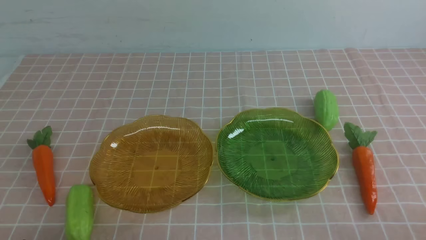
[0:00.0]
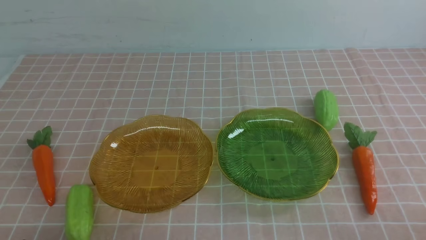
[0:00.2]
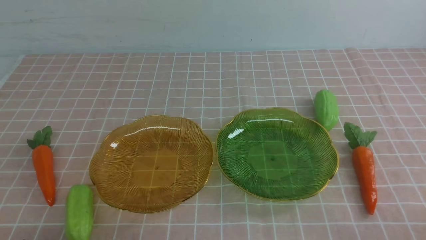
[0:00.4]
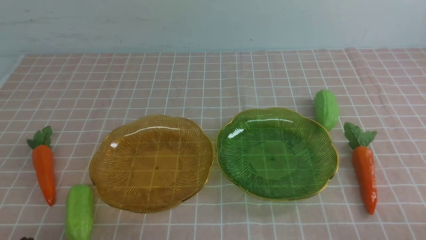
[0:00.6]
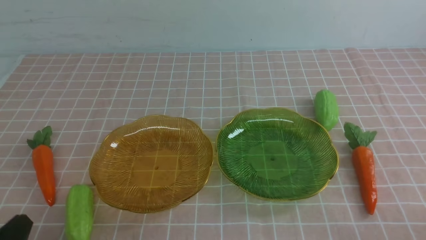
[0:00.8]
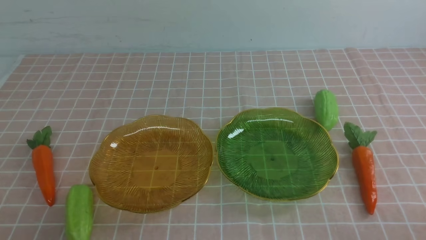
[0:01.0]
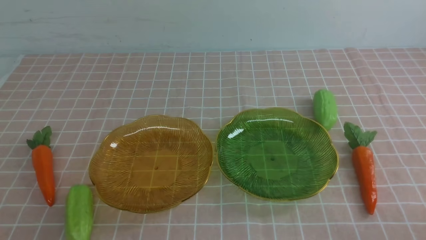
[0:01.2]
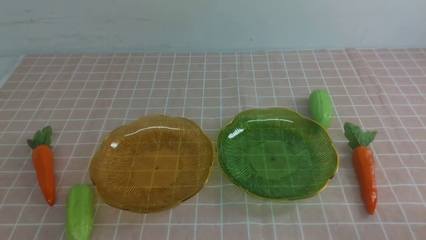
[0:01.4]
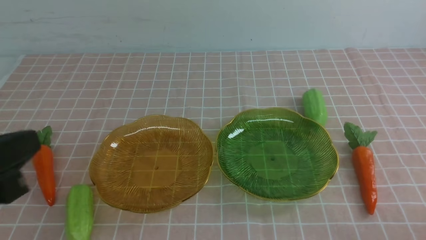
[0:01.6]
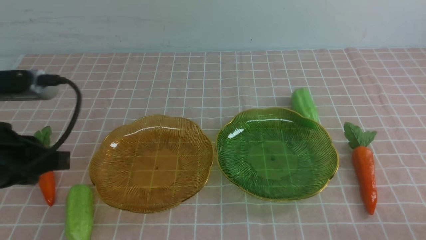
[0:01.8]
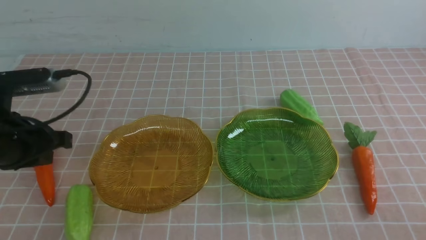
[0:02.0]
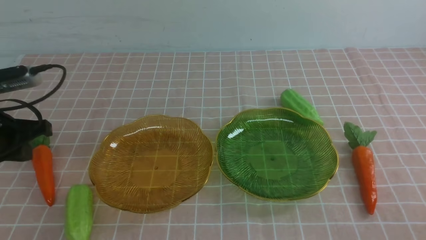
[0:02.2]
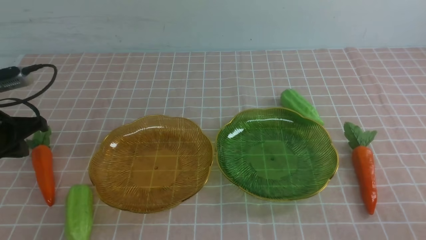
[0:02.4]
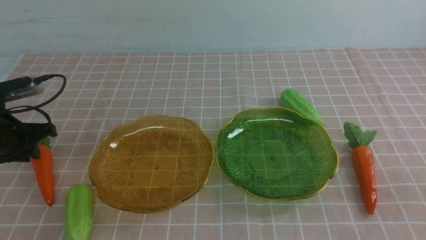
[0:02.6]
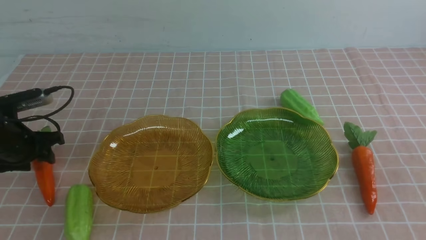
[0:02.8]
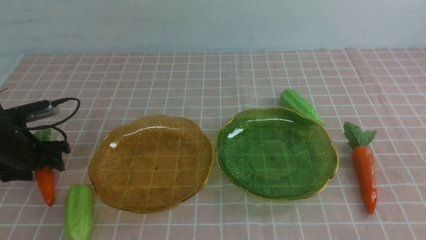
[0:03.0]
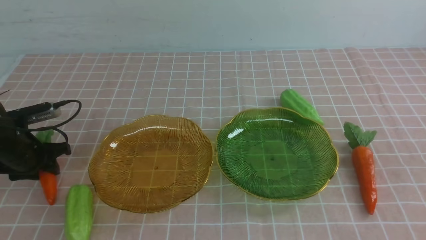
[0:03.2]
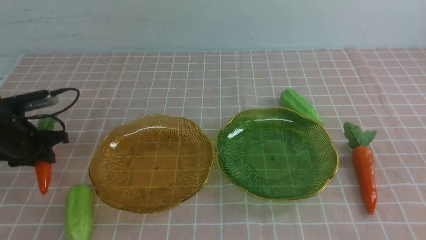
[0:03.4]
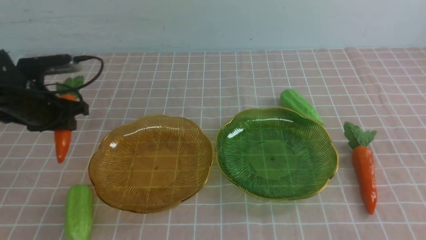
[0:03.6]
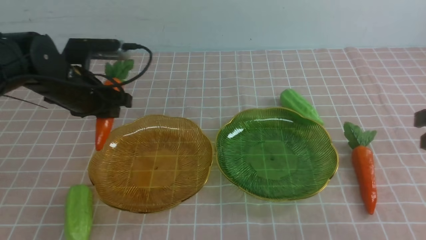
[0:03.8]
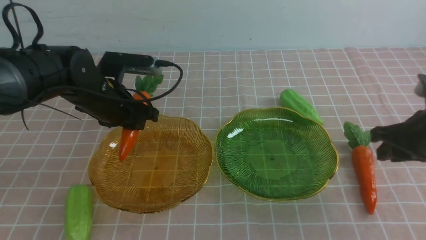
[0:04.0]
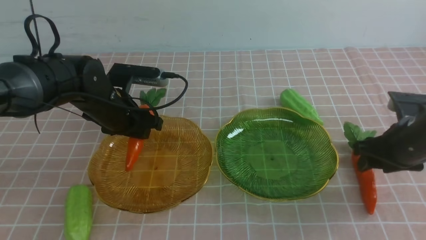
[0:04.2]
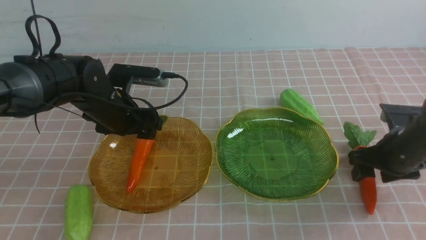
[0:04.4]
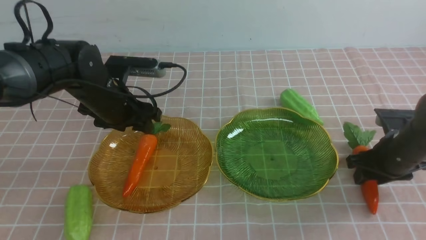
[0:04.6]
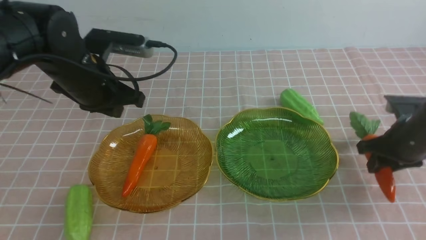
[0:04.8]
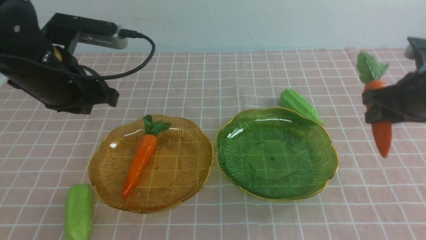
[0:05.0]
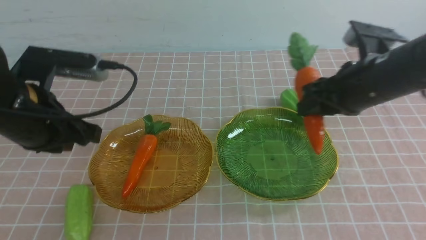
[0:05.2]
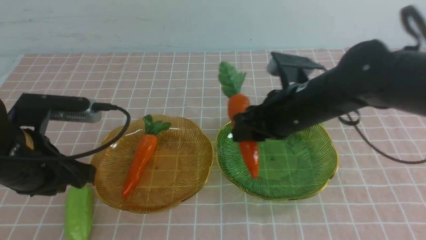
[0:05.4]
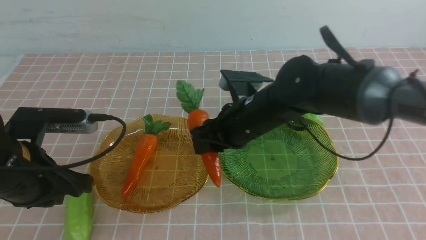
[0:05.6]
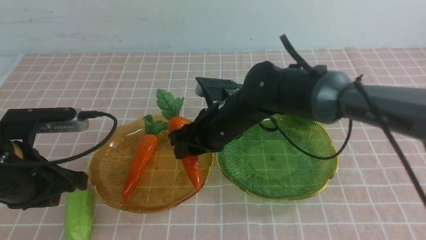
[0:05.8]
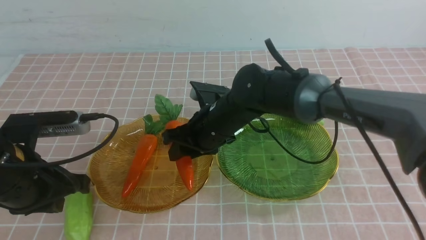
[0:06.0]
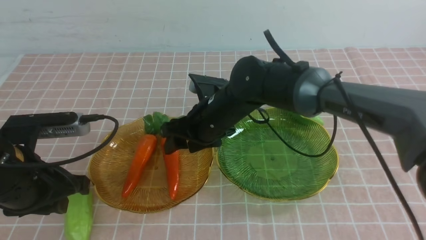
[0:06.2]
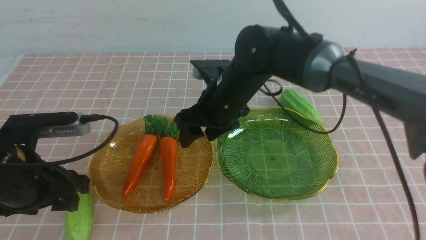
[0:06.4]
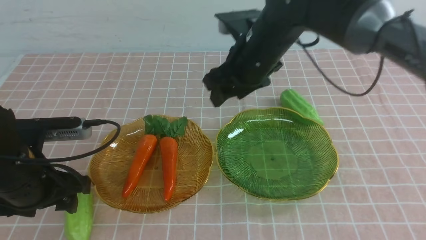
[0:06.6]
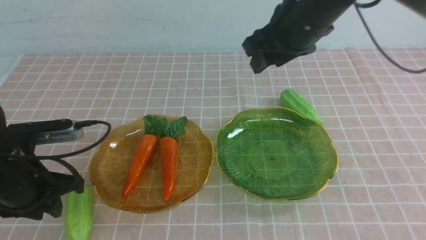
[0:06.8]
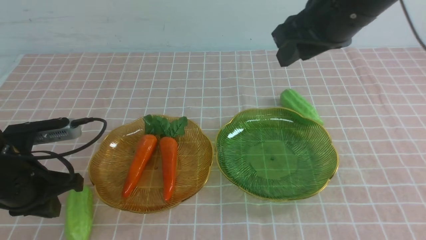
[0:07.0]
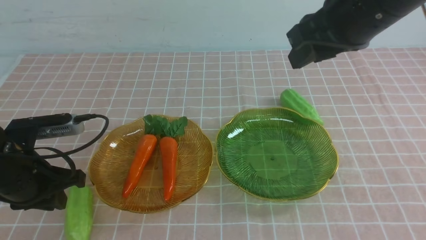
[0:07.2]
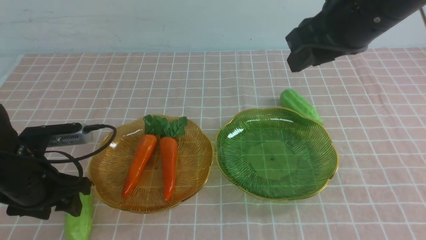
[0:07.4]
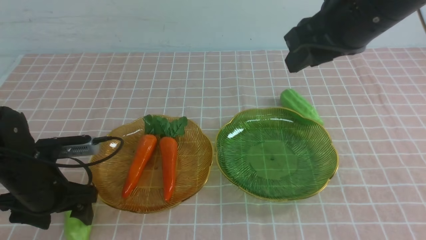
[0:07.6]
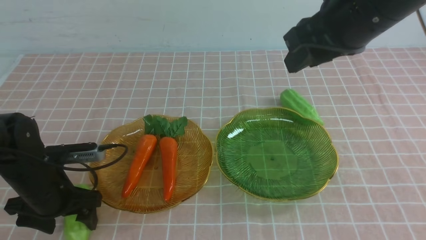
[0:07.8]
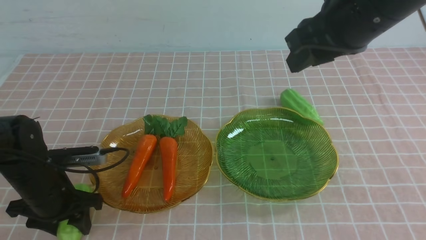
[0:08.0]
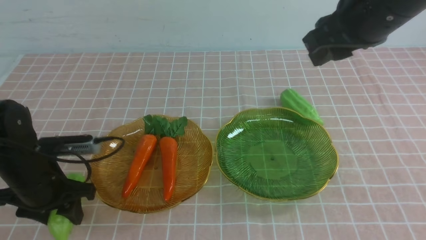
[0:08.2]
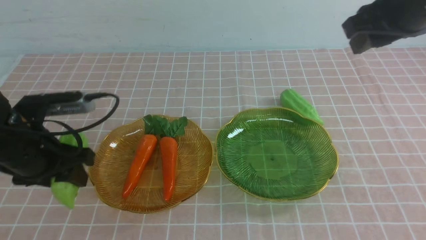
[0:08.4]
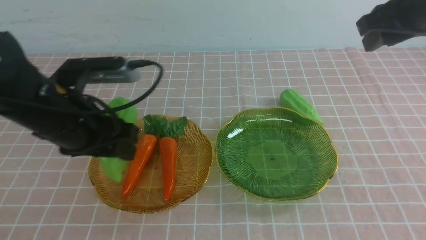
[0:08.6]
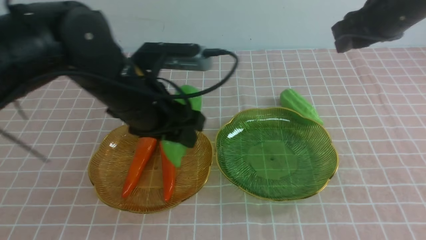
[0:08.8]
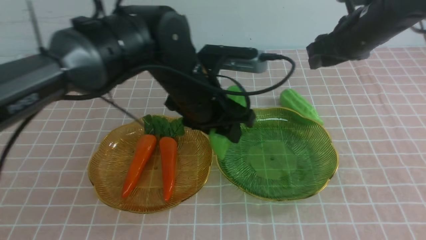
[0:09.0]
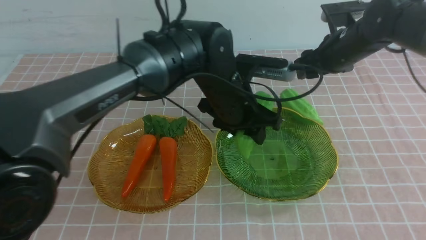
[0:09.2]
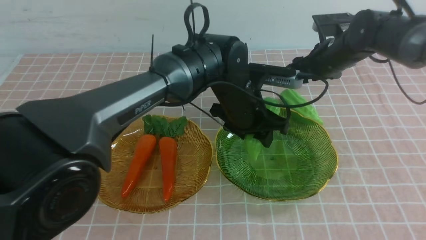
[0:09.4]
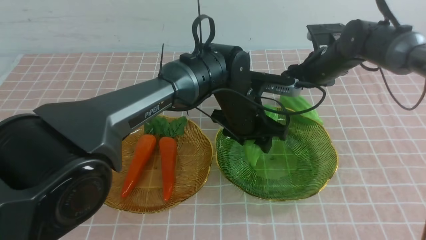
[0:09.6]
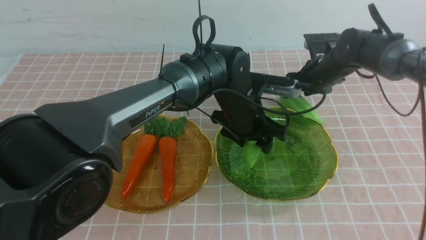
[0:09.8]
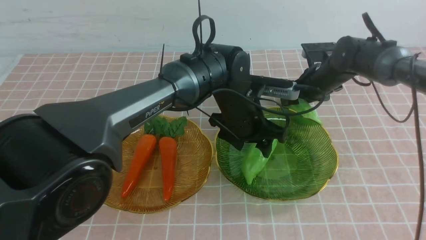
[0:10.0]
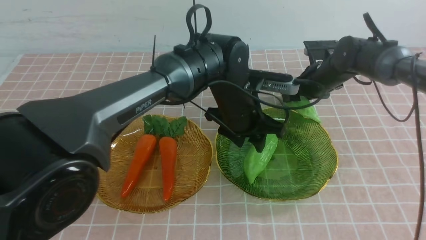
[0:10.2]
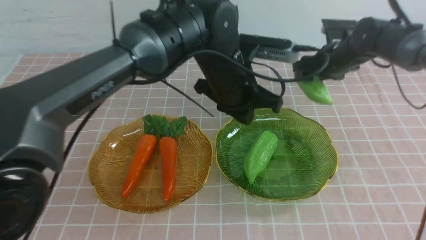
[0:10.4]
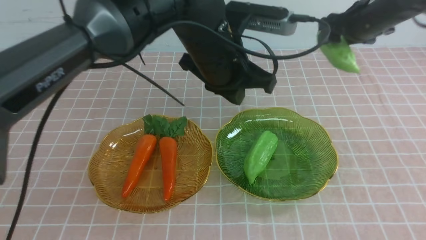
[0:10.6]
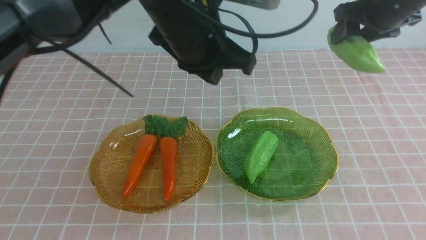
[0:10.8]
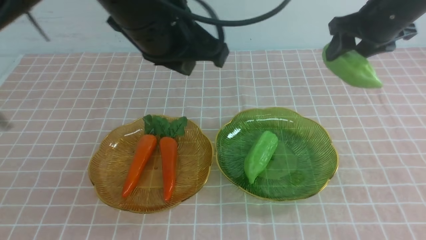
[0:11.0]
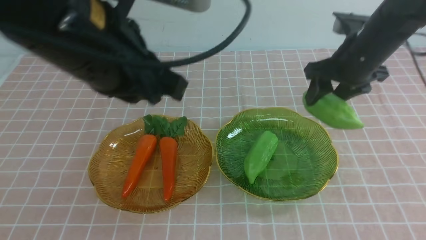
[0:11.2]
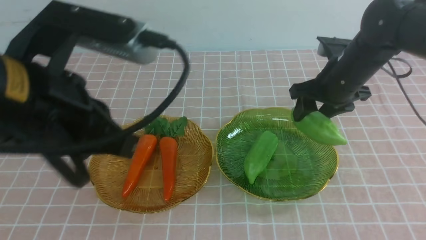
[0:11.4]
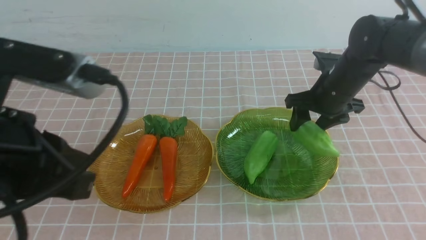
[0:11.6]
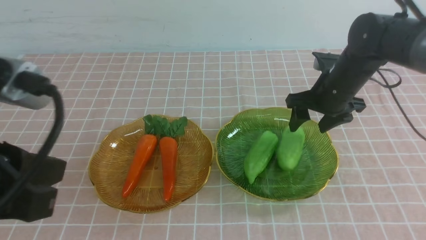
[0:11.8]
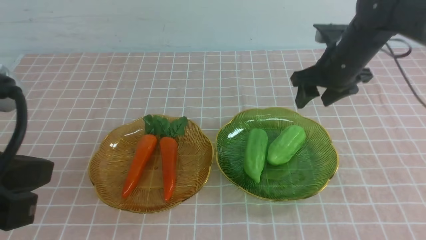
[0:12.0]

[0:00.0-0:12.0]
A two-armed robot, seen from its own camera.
Step, 0:00.0 to 0:04.4: use the left arm to grab a carrot and put it into the left plate.
Step, 0:04.6 to 0:06.2: use the right arm to grab a carrot and put it into the left plate.
Step, 0:06.4 to 0:10.0: use the left arm to grab a chayote and put it into the right plate.
Step, 0:10.4 to 0:11.6: use the right arm to grab a chayote and put it into the right plate.
0:00.0 to 0:01.6: The left gripper moves upward, about 20 cm.
0:01.6 to 0:03.0: The left gripper is displaced forward, downward and to the left by roughly 30 cm, and opens its fingers; the right gripper goes approximately 15 cm upward and forward.
0:03.0 to 0:04.4: The left gripper heads to the right, covering some 15 cm, and closes, then reopens; the right gripper moves forward and downward, approximately 25 cm, and opens.
0:04.4 to 0:06.0: The right gripper heads to the left, covering roughly 30 cm. The left gripper is displaced backward by some 15 cm, and closes its fingers.
0:06.0 to 0:07.6: The right gripper is displaced upward and to the right by roughly 25 cm; the left gripper moves downward and forward, some 10 cm, and opens its fingers.
0:07.6 to 0:09.0: The left gripper goes approximately 30 cm to the right and forward; the right gripper is displaced downward and forward by roughly 30 cm, and opens up.
0:09.0 to 0:10.4: The left gripper shifts about 30 cm upward, backward and to the left, and closes up, while the right gripper goes approximately 10 cm upward and backward.
0:10.4 to 0:12.0: The right gripper heads backward and upward, covering about 30 cm, and closes its fingers. Meanwhile the left gripper goes approximately 20 cm backward and to the left.

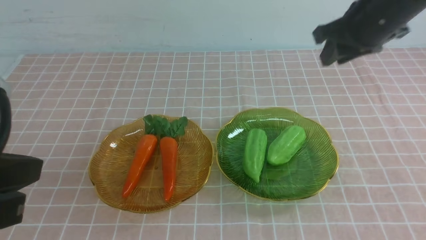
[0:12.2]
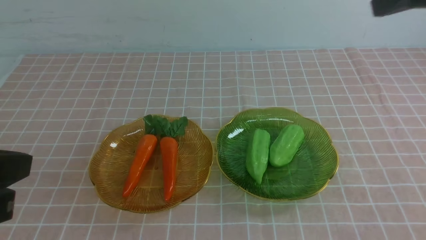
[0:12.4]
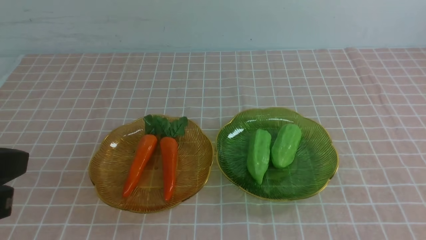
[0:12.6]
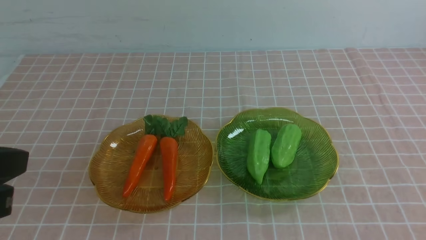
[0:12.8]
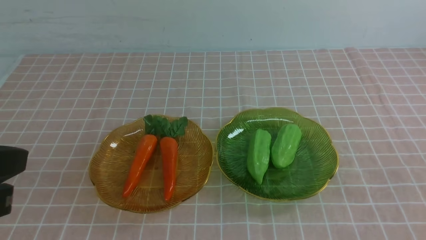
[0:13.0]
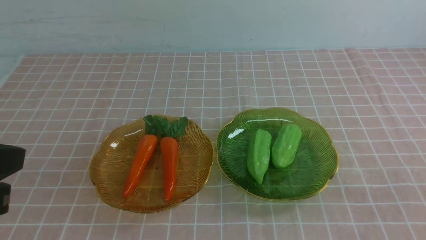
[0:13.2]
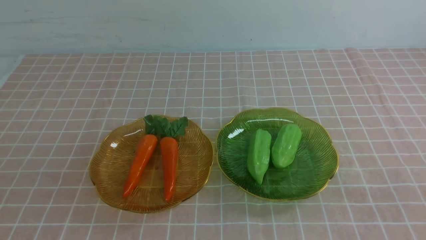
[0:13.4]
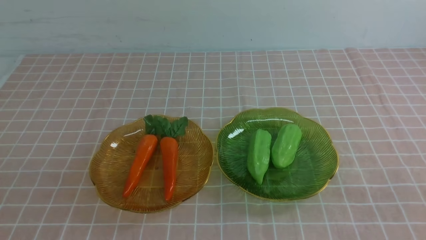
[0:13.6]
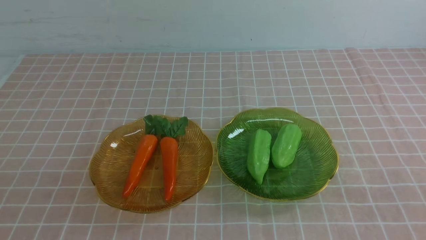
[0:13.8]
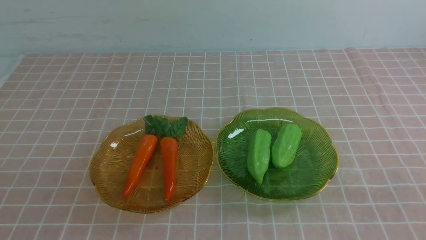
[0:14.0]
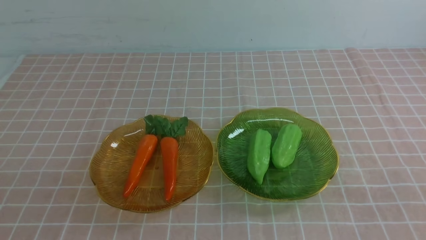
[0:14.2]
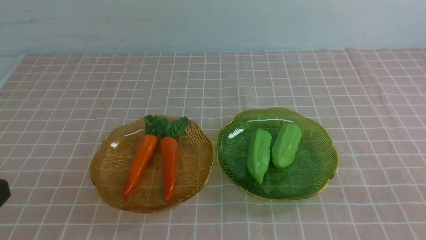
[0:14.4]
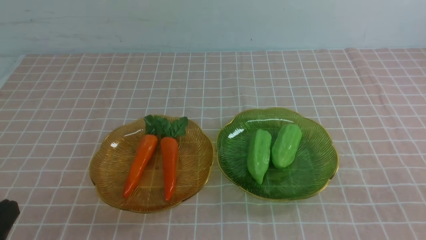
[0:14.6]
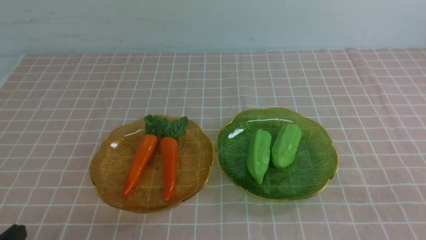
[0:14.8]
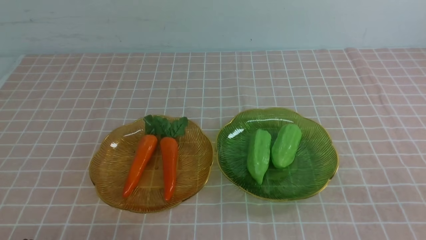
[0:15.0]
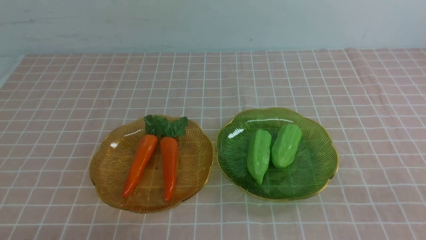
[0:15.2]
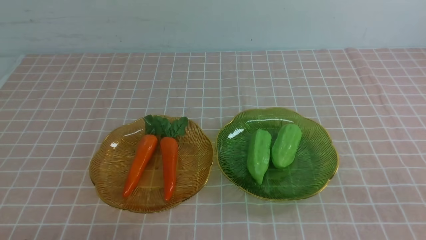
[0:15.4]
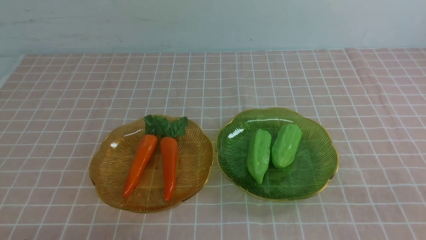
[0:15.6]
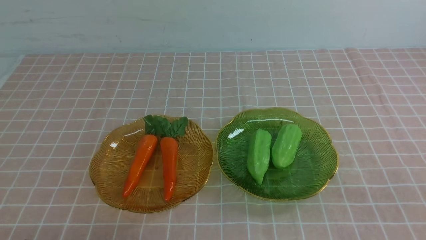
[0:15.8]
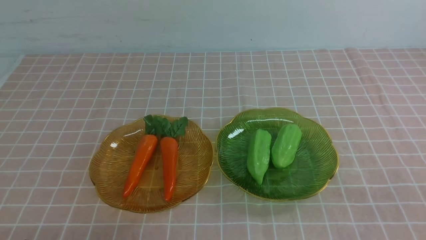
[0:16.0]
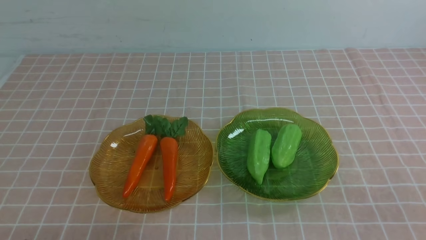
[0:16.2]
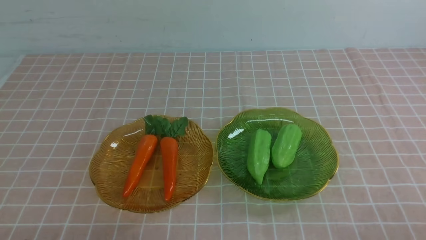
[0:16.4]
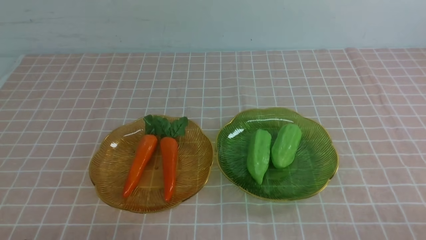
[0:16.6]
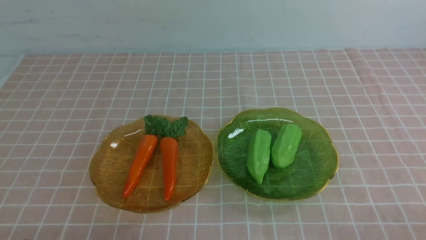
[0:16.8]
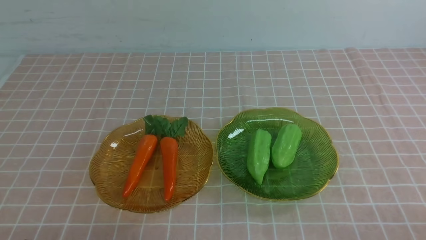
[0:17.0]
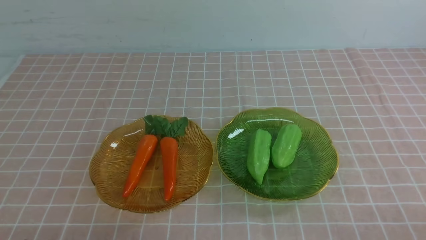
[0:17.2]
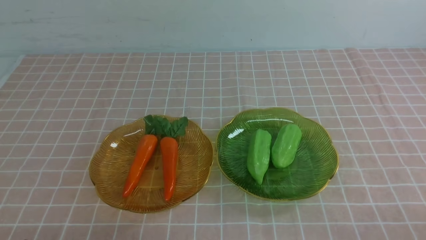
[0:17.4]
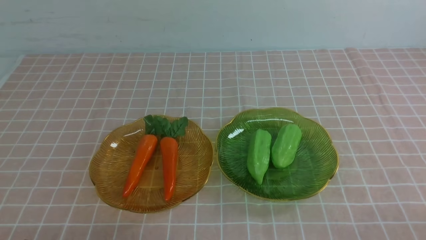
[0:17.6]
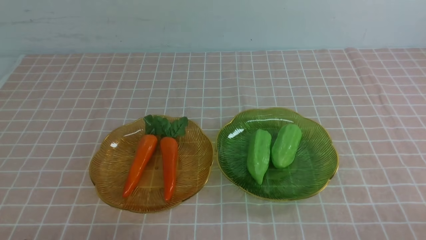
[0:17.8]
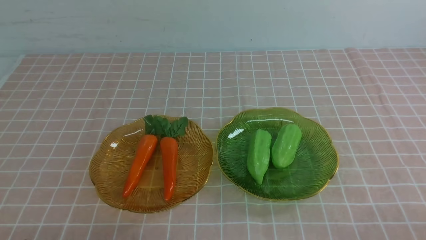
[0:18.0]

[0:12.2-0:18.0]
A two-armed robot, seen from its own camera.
0:12.2 to 0:13.6: The two grippers go roughly 10 cm downward.
0:16.6 to 0:18.0: The two grippers keep their place.
